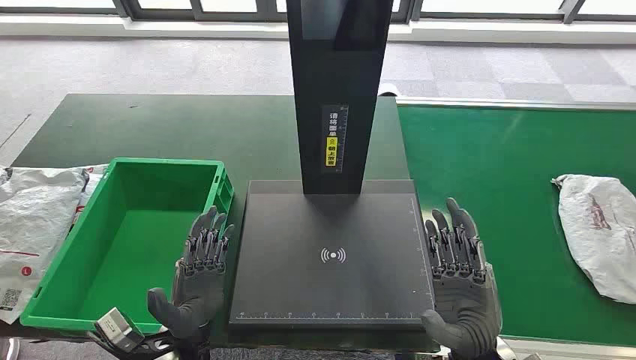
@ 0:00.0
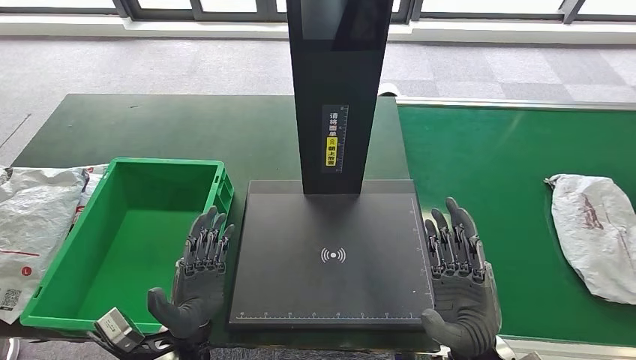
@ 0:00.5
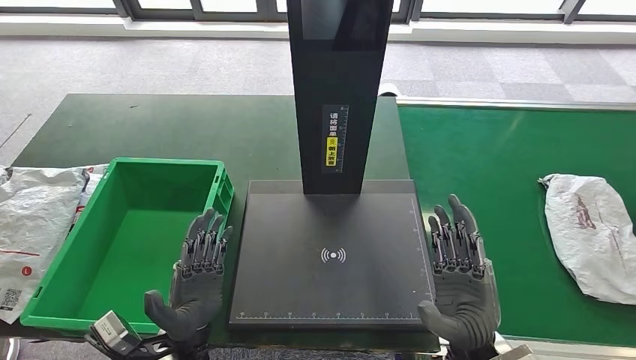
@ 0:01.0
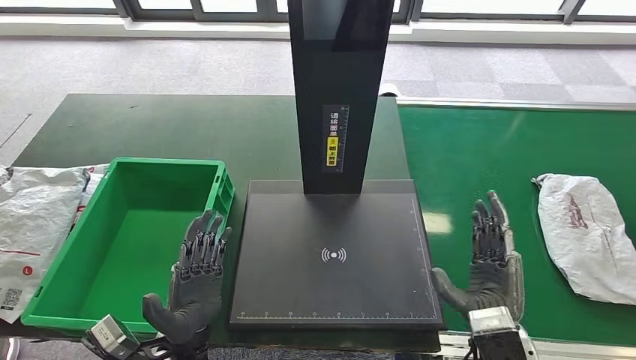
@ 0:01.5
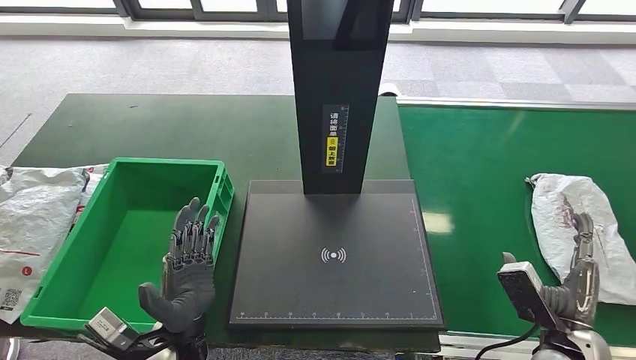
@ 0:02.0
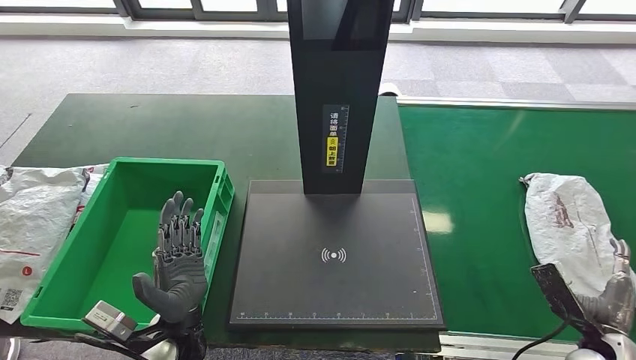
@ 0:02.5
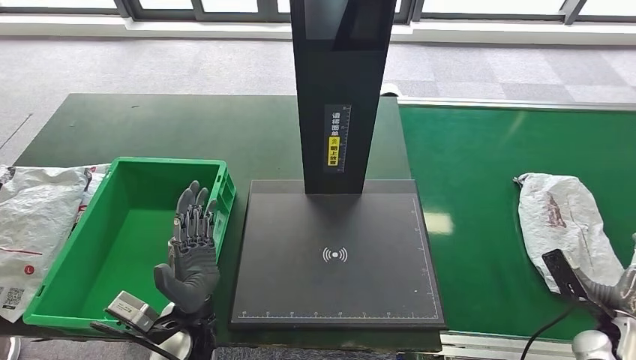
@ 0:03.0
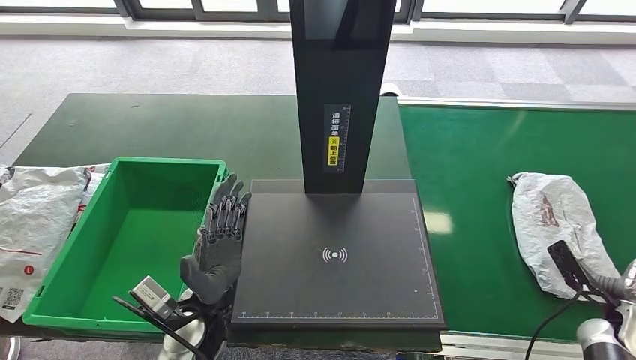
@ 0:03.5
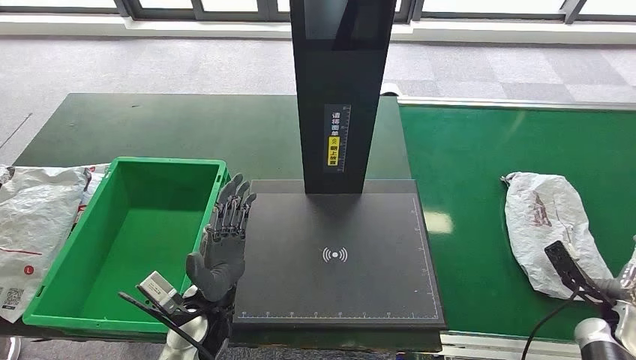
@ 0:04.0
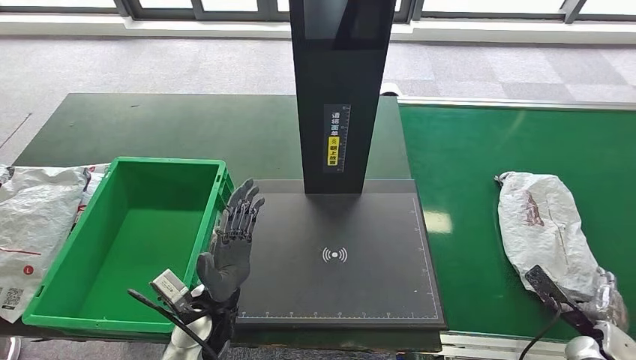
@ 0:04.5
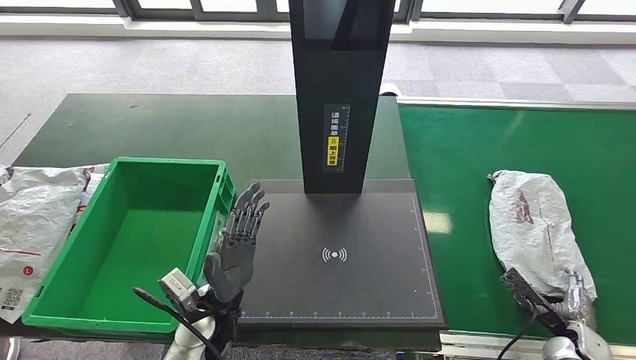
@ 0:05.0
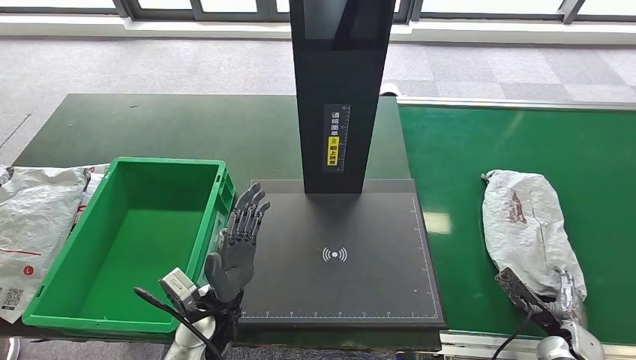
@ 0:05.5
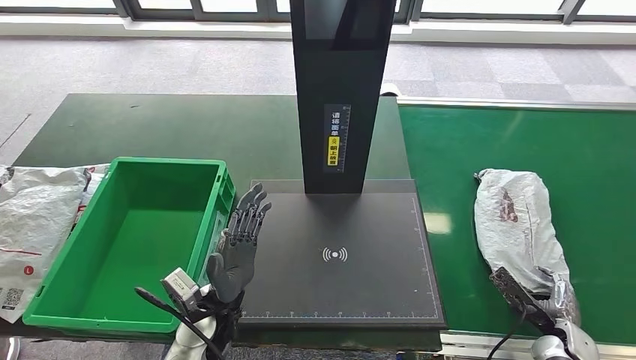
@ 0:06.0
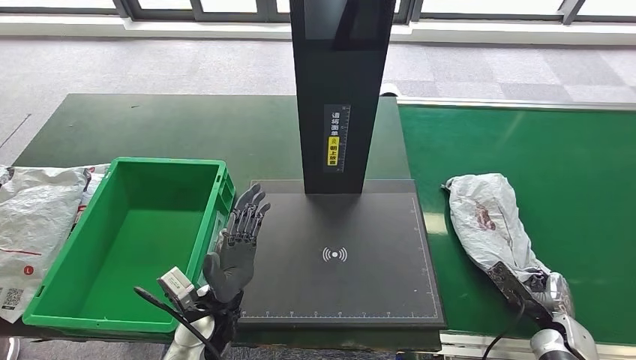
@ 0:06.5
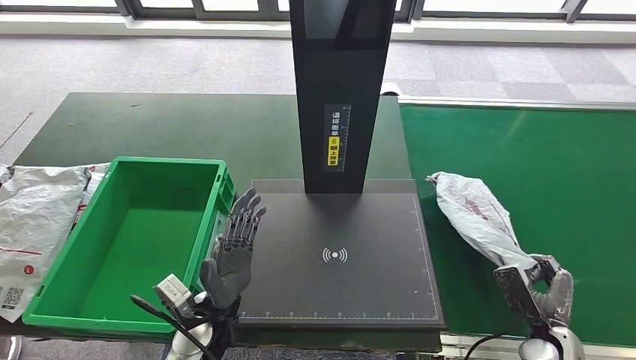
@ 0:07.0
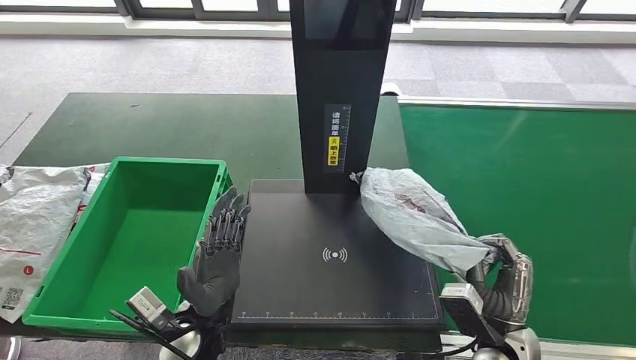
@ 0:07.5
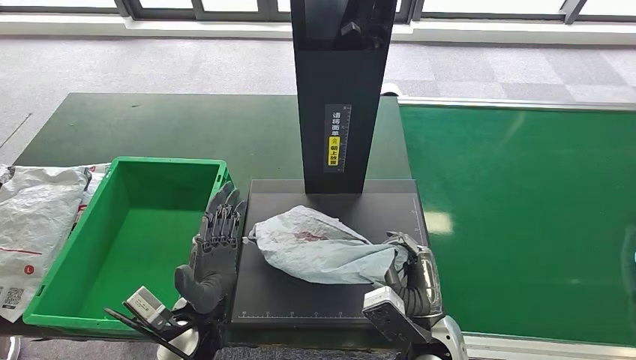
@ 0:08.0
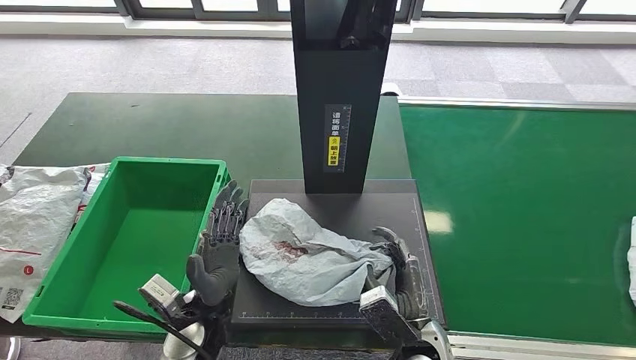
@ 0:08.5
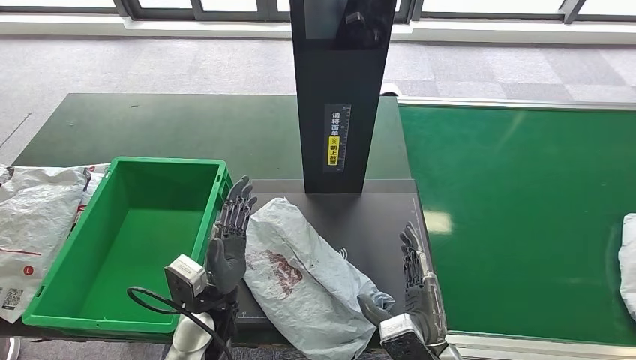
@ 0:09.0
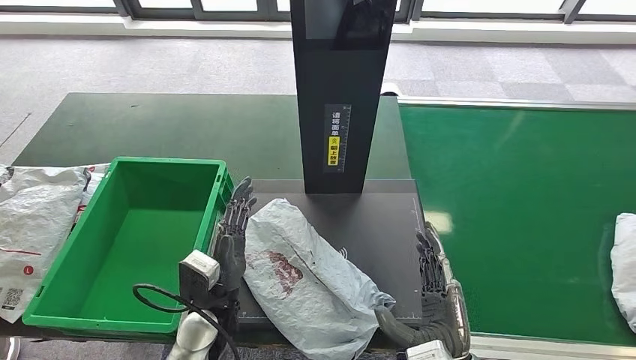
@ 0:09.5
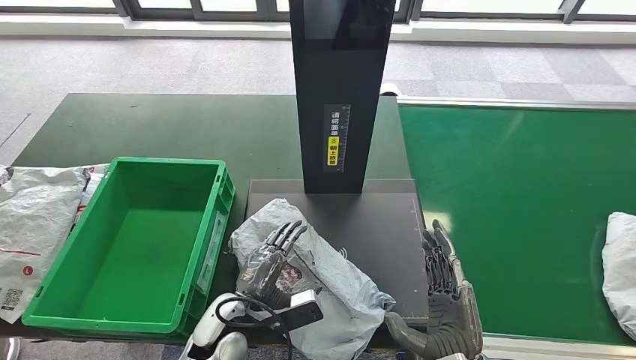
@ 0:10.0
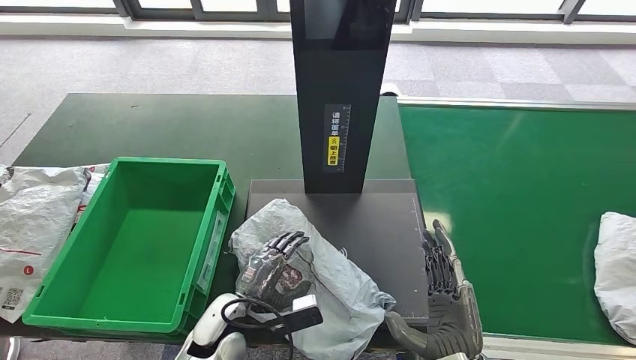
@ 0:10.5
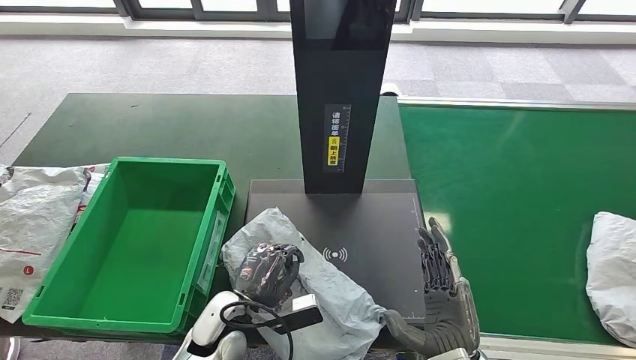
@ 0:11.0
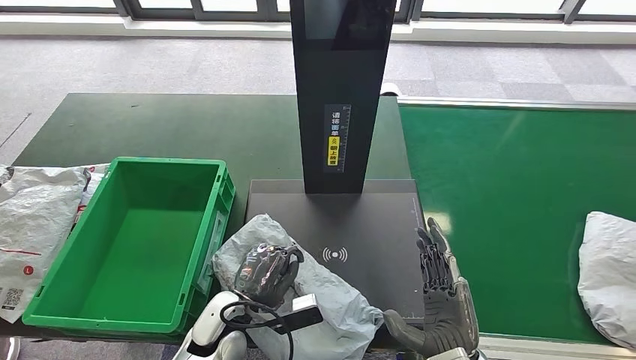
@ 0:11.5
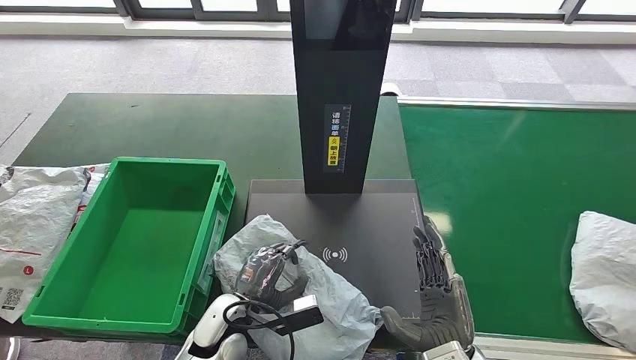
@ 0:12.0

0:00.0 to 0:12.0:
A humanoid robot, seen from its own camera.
Step, 0:00.0 to 0:07.5: Take the parcel off the conveyor belt.
Step, 0:08.0 to 0:11.0: Place the parcel onto the inbound machine.
0:02.0 to 0:04.0: The right hand is displaced to the right and downward by some 15 cm. The left hand moves roughly 5 cm.
0:04.0 to 0:06.0: The right hand is displaced to the left and downward by about 10 cm.
0:06.0 to 0:08.0: The right hand goes approximately 30 cm to the left and upward.
0:08.0 to 0:10.0: The right hand heads backward, covering about 5 cm.
0:10.0 to 0:12.0: The hands move only a little.

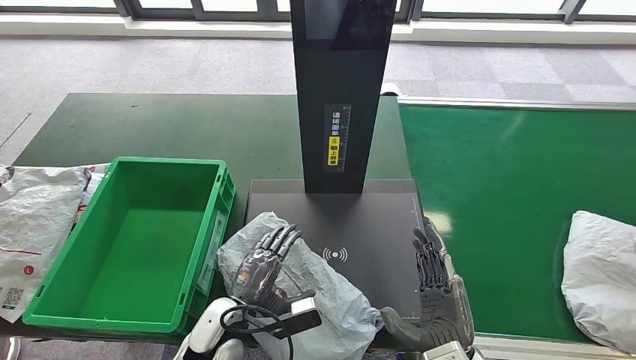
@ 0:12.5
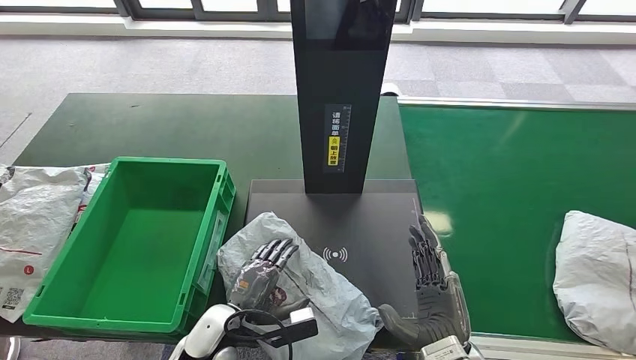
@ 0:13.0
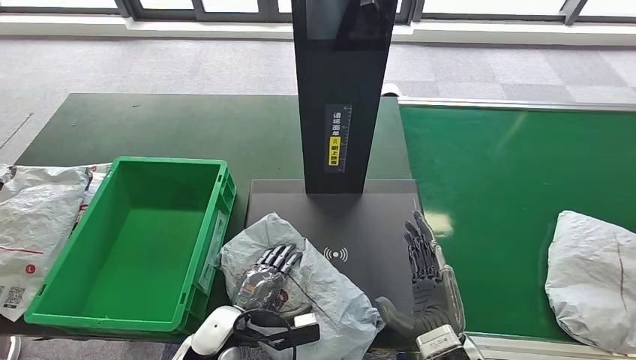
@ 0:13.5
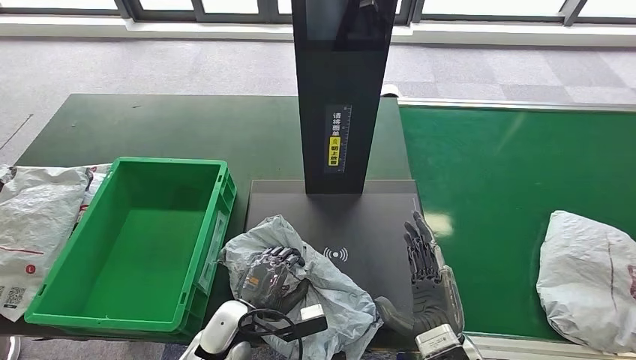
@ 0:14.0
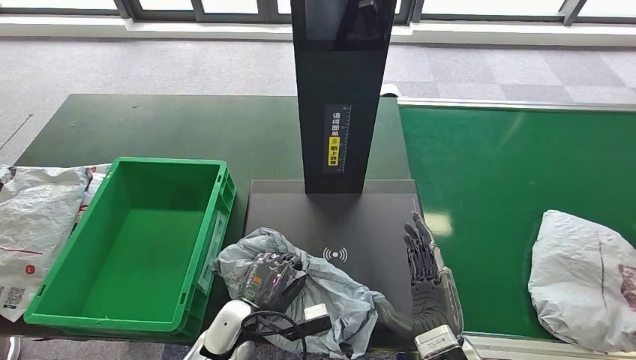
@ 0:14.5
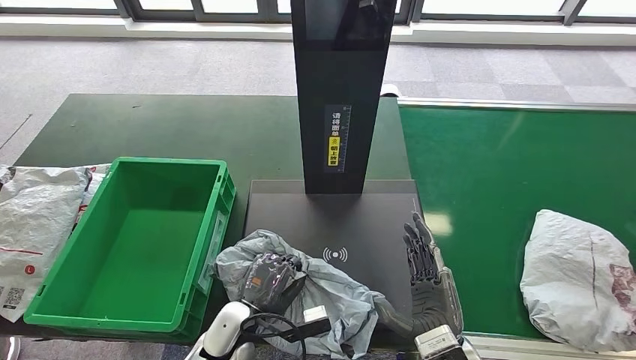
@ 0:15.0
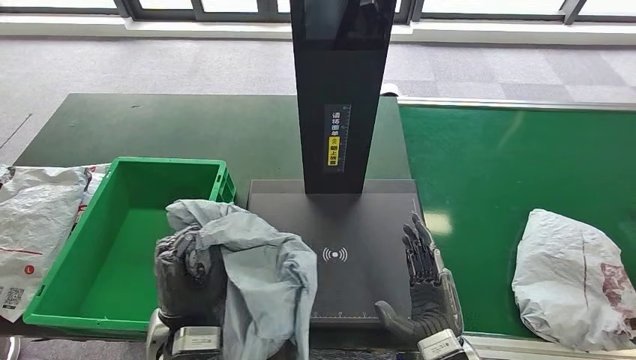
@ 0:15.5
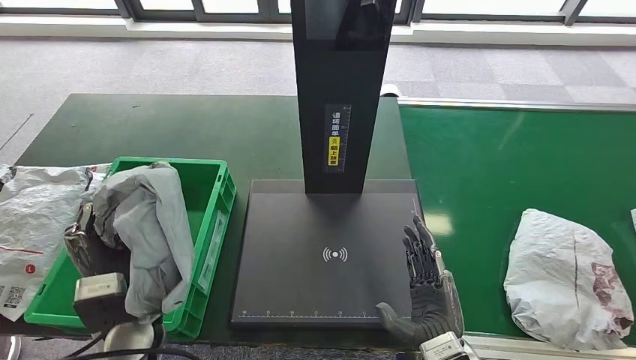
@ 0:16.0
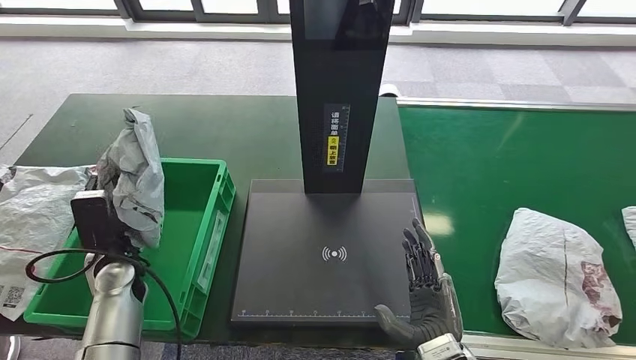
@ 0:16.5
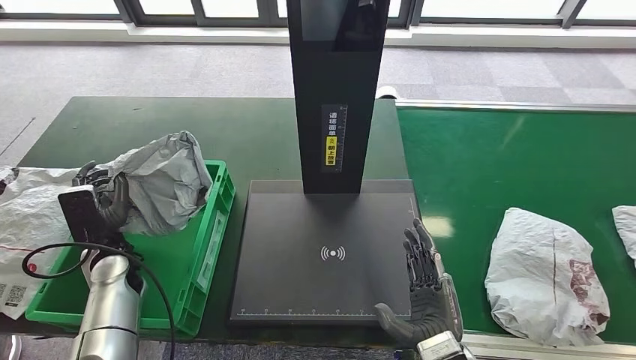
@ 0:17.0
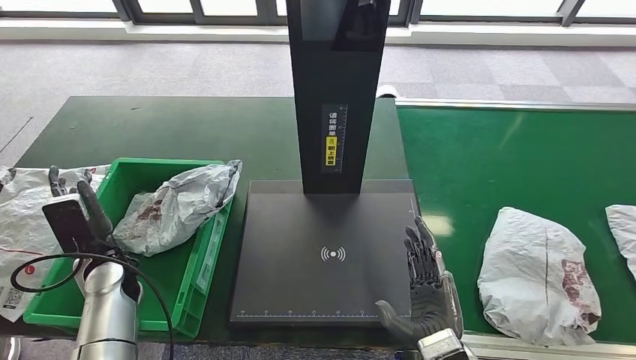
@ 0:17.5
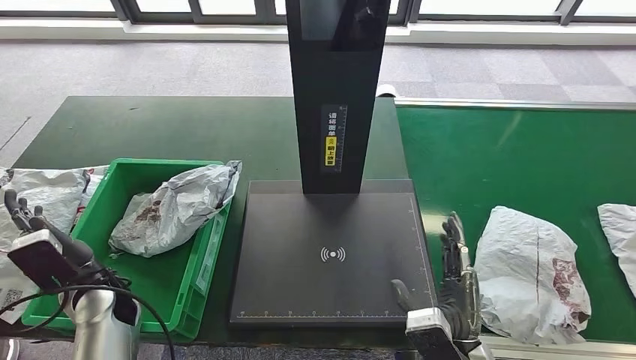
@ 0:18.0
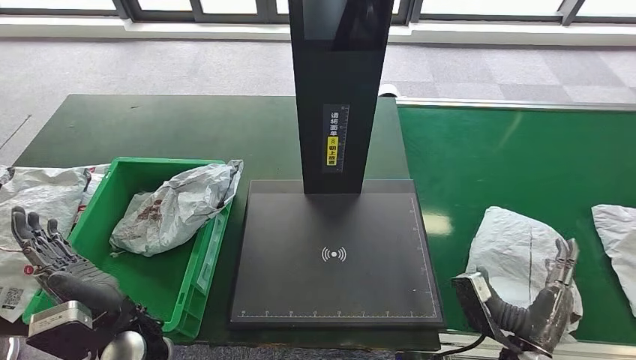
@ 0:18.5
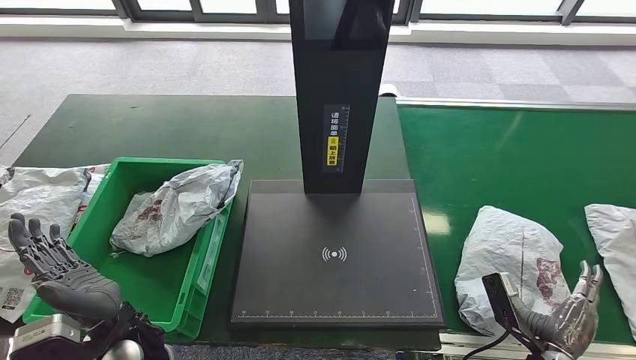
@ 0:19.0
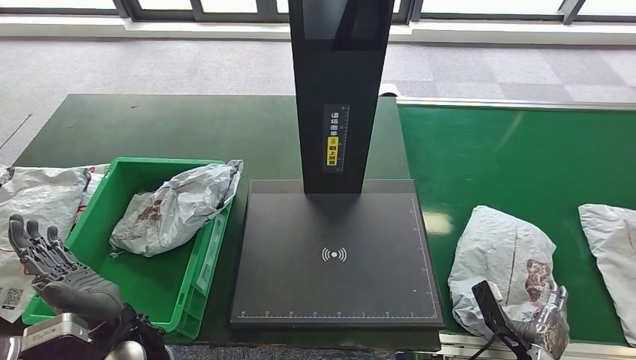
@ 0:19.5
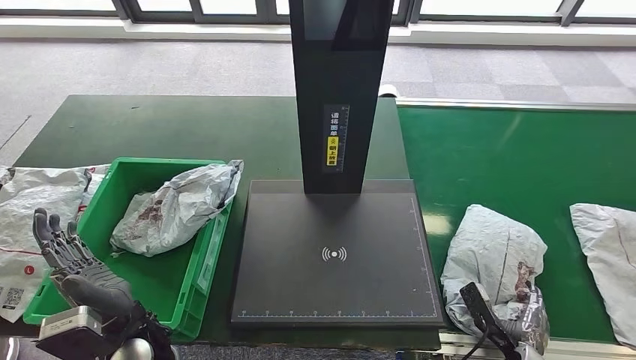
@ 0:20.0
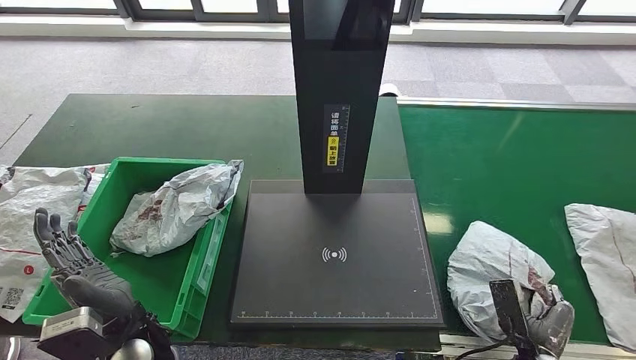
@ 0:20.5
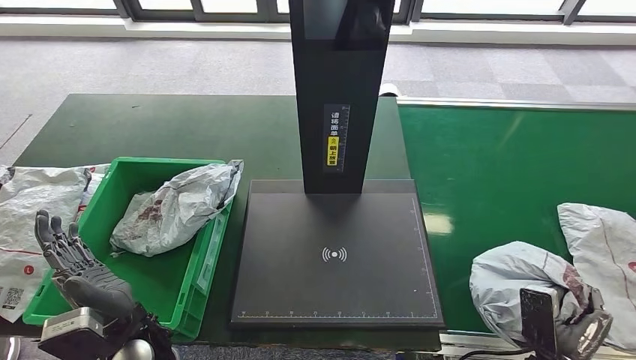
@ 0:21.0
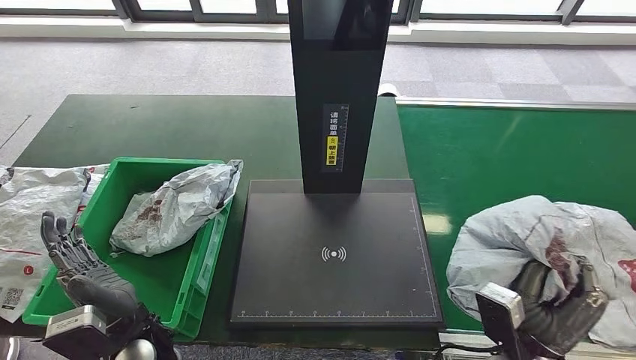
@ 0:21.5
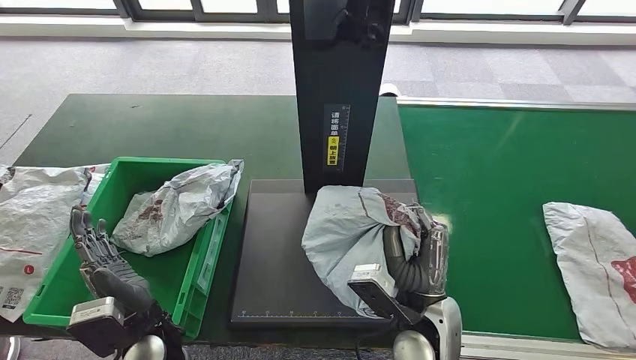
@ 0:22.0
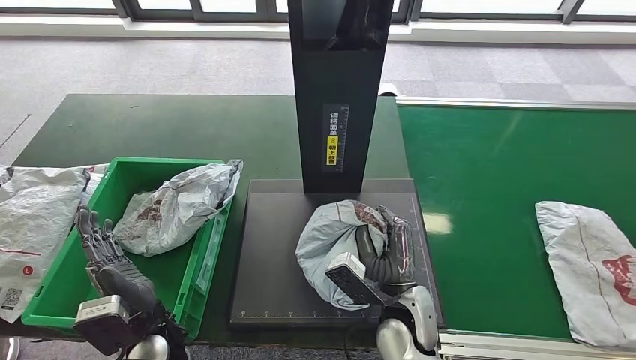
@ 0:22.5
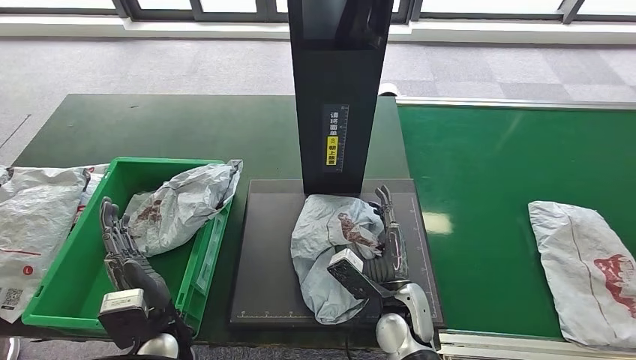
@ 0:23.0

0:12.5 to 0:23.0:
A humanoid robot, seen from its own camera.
Step, 0:12.5 to 0:16.0: Pick up the parcel from the inbound machine.
Step, 0:16.5 to 0:19.0: Put the parcel inside the courier box.
Step, 0:19.5 to 0:21.5: Pick up the parcel from the conveyor belt.
0:12.5 to 0:14.5: The hands stay close to where they were, moving slightly.
